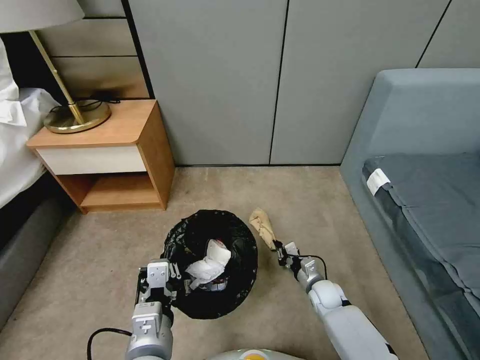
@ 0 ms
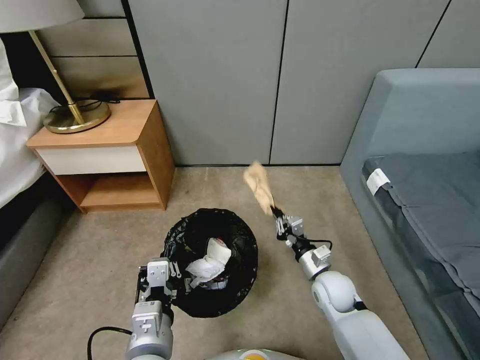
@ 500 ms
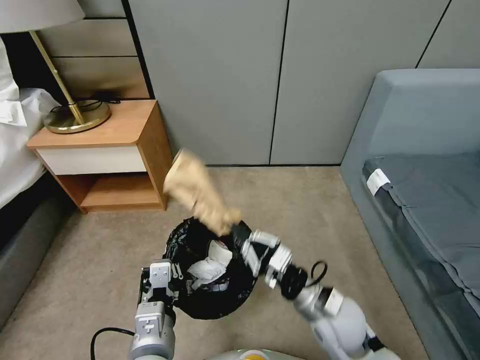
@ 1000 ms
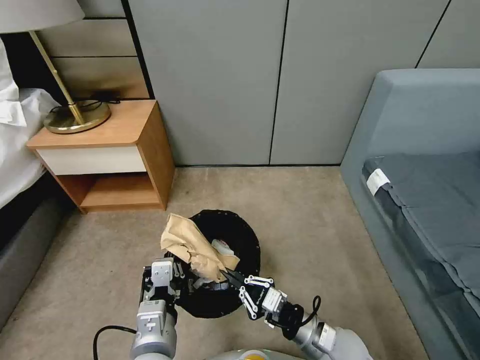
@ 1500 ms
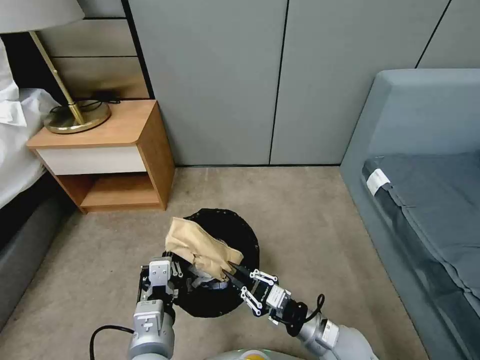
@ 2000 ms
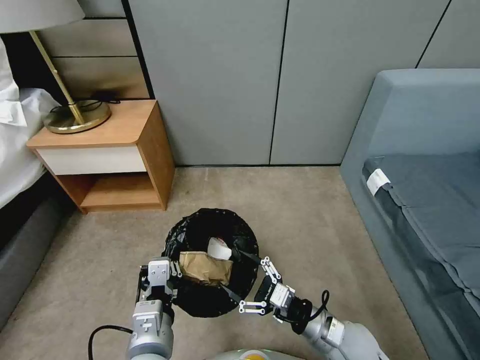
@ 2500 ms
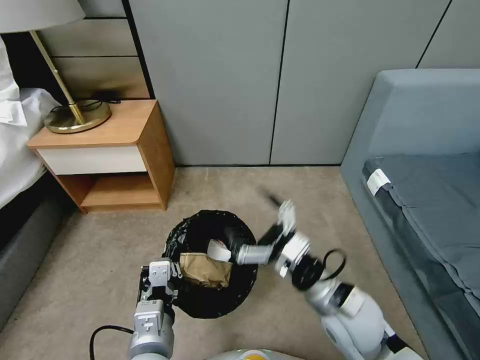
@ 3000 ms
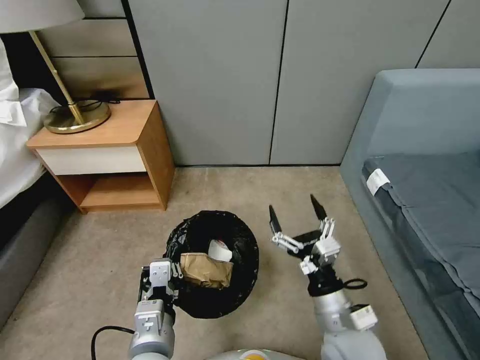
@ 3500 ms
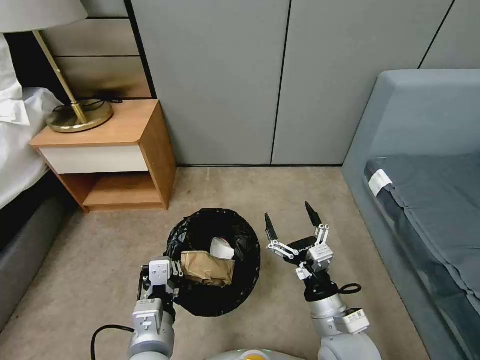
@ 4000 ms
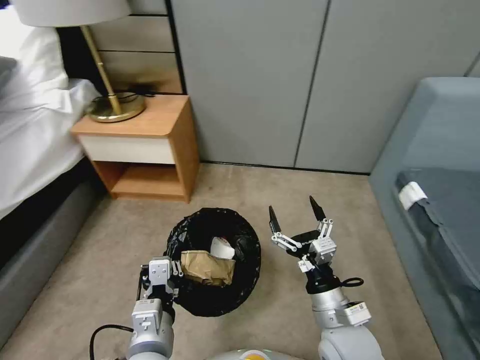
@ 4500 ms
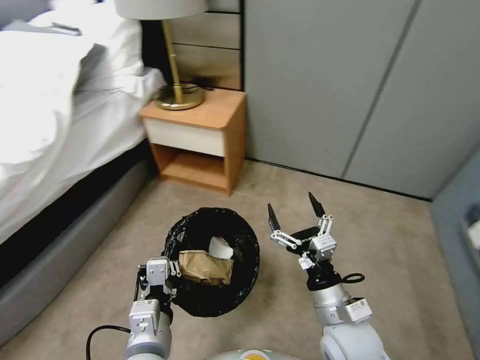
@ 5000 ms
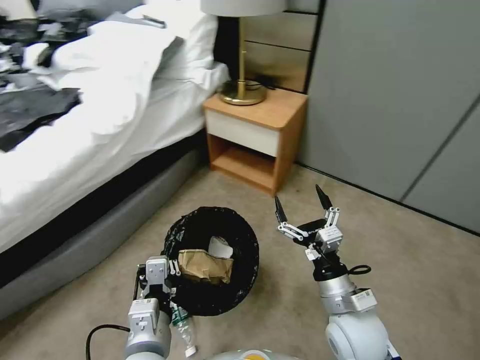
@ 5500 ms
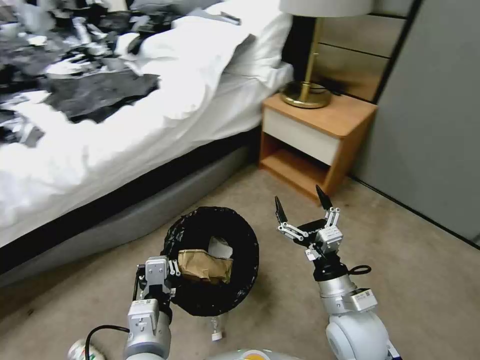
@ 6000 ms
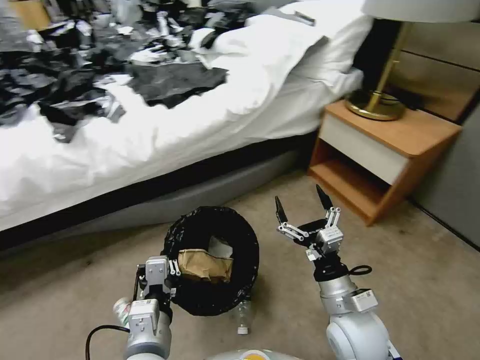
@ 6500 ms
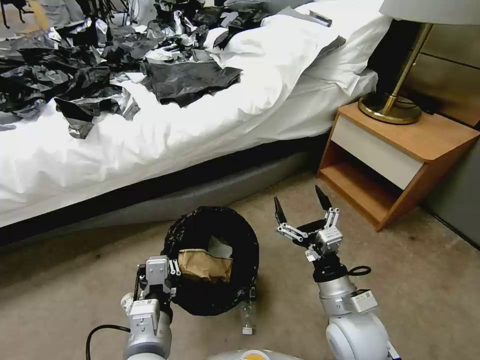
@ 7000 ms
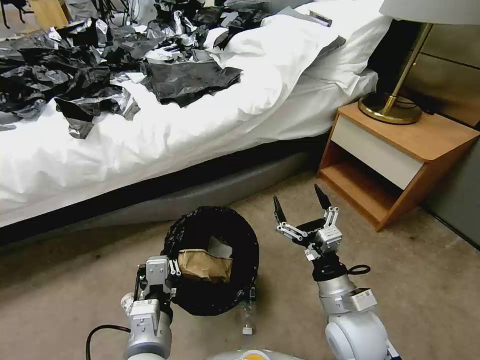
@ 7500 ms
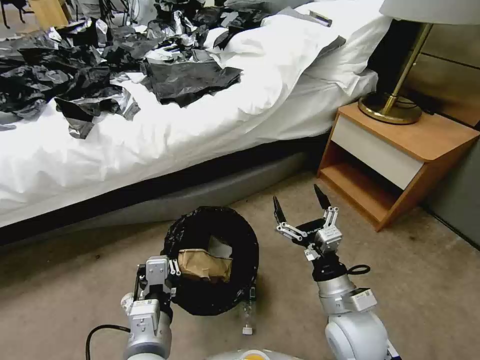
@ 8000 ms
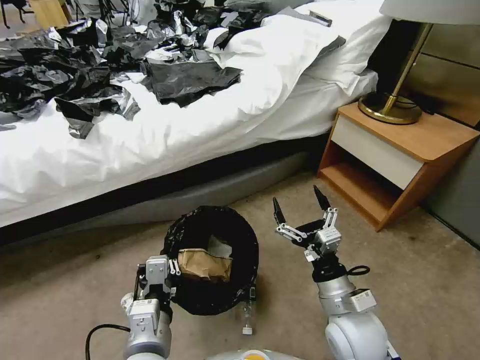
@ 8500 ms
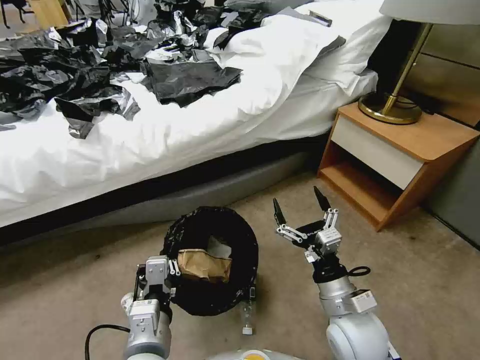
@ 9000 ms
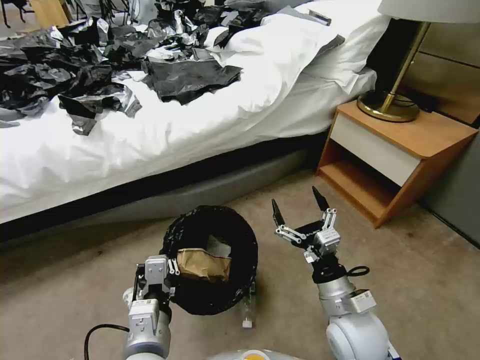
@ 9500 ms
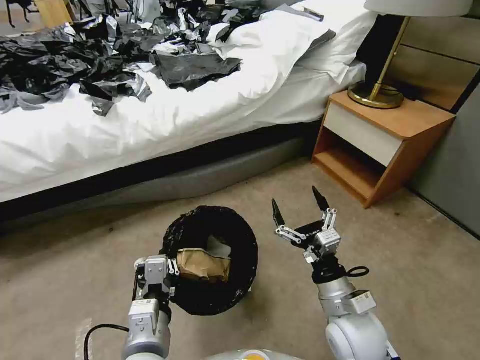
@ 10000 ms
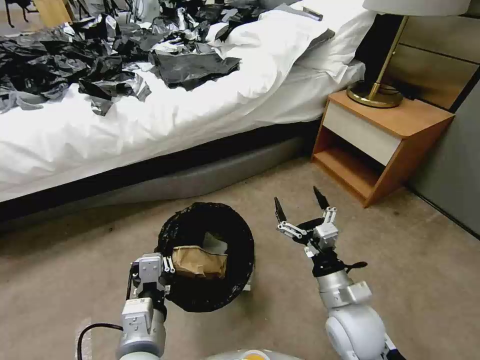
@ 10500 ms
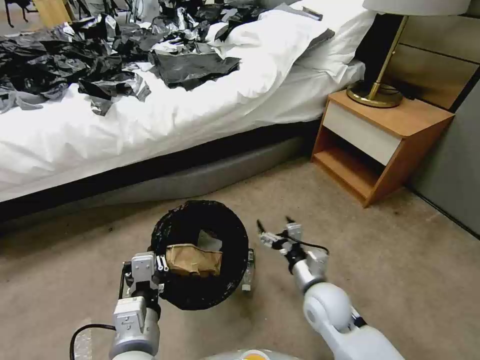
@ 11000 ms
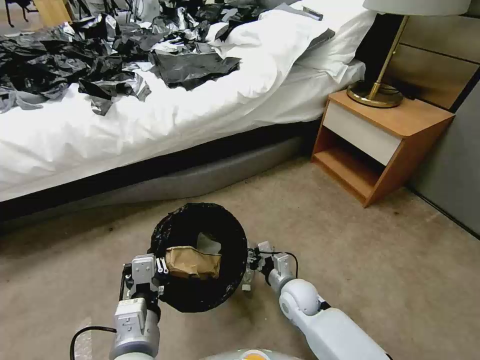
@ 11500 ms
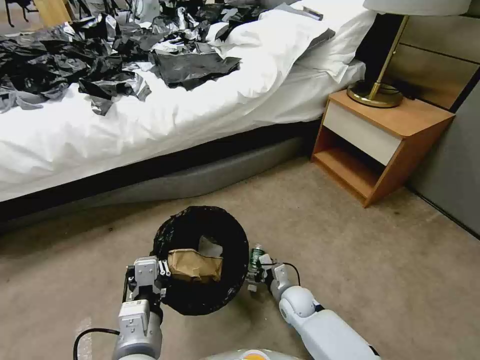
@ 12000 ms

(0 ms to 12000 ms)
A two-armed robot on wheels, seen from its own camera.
Task of the whole recording: Pick up the trash bin, then pick up the garbage from the floor and place it into the trash bin.
0 ms - 2000 ms: The right gripper heads upward and backward, covering roughly 20 cm.
2000 ms - 4000 ms: The right gripper moves upward, roughly 5 cm, and opens up.
10000 ms - 12000 ms: The right gripper travels downward and forward by approximately 25 cm.

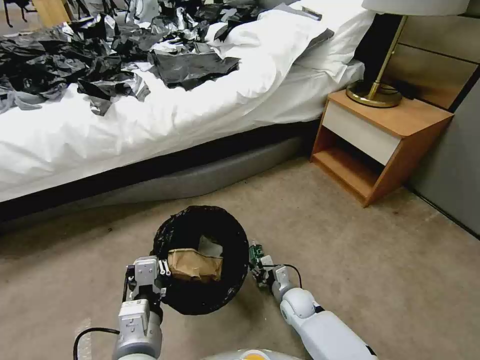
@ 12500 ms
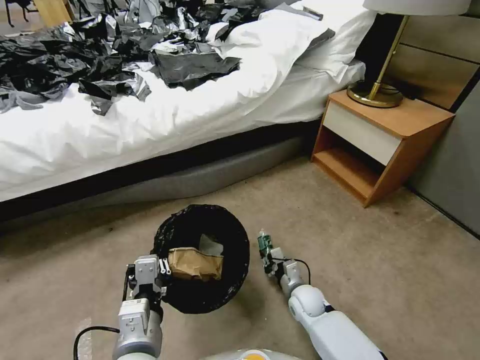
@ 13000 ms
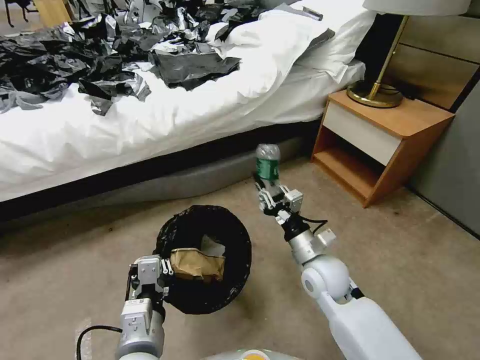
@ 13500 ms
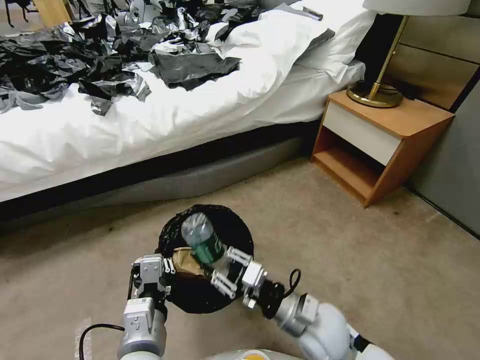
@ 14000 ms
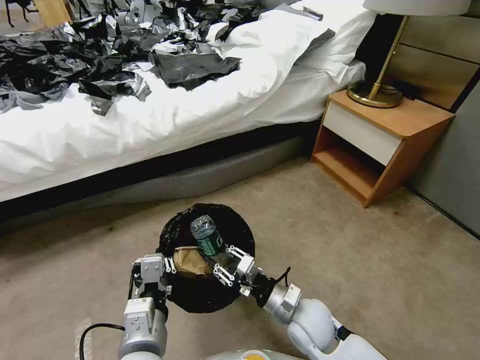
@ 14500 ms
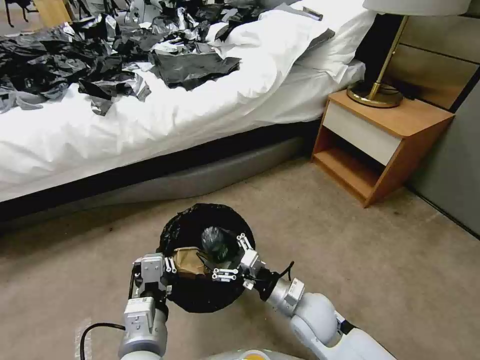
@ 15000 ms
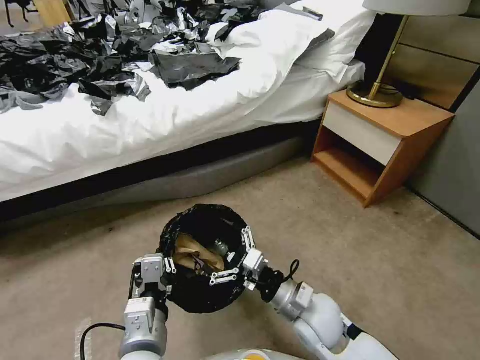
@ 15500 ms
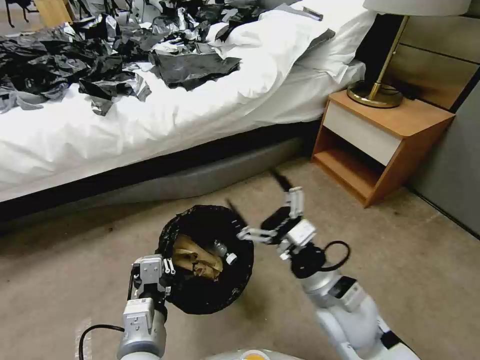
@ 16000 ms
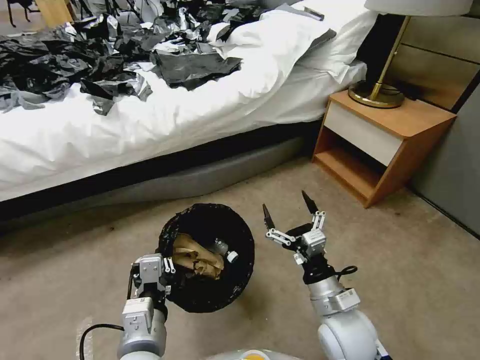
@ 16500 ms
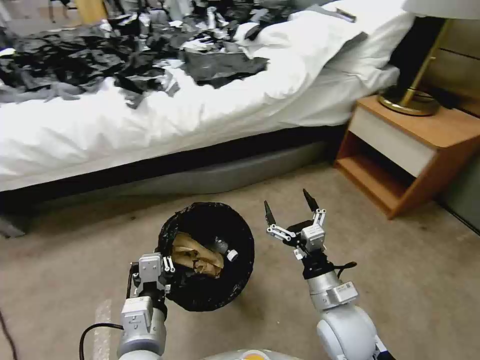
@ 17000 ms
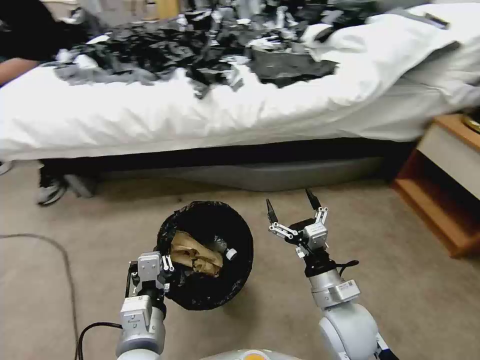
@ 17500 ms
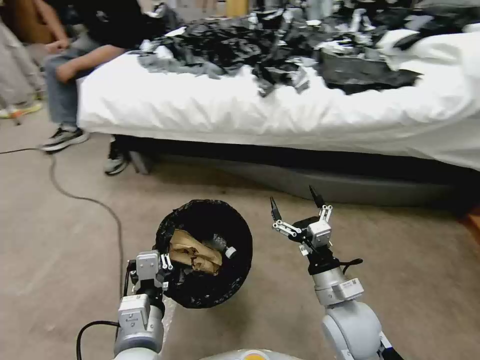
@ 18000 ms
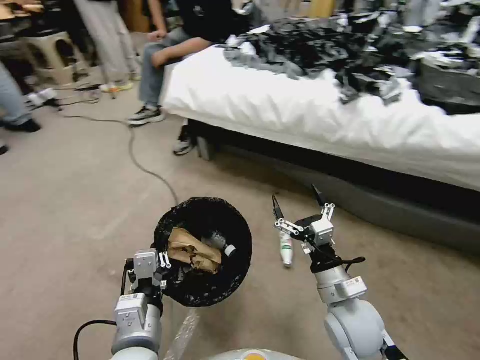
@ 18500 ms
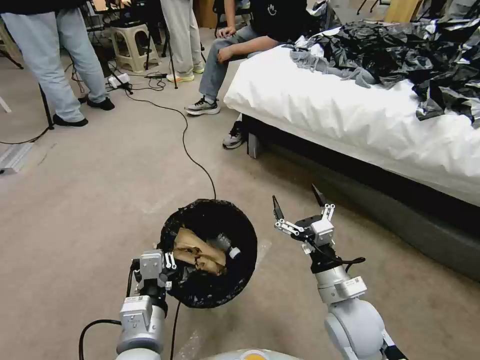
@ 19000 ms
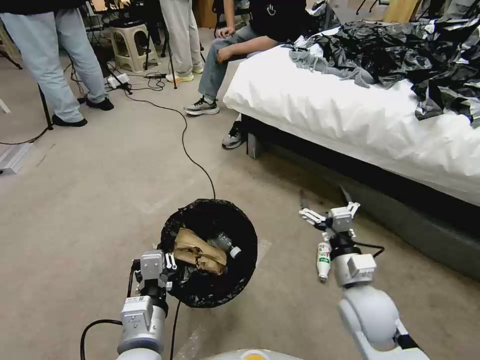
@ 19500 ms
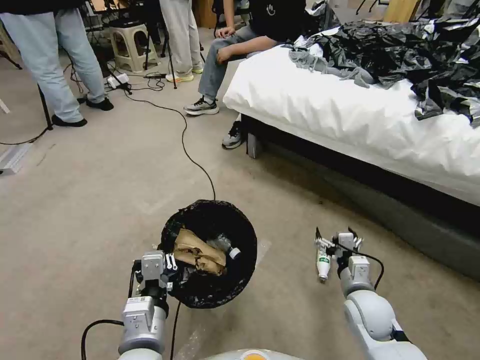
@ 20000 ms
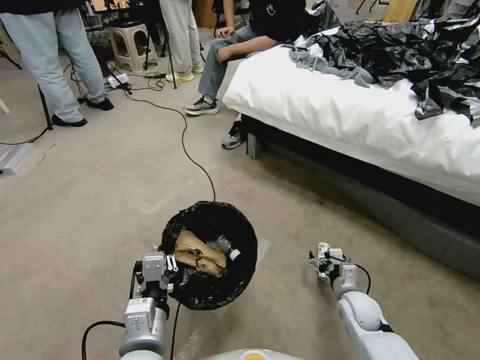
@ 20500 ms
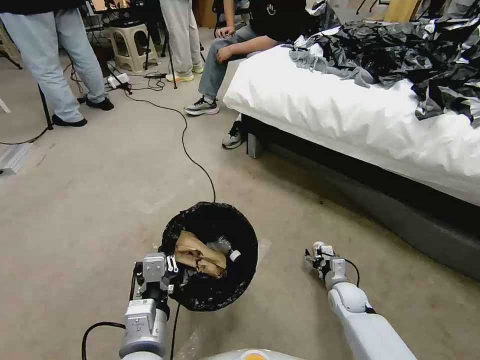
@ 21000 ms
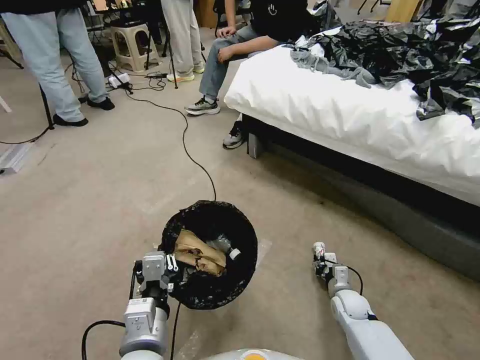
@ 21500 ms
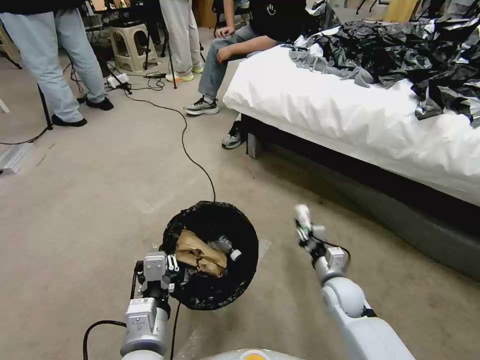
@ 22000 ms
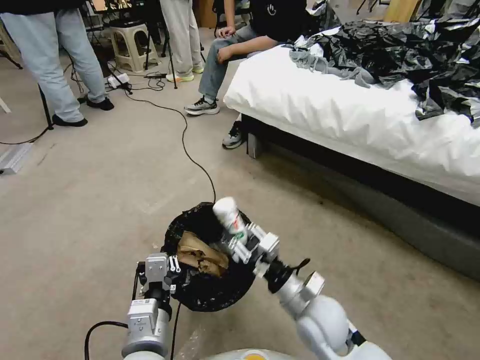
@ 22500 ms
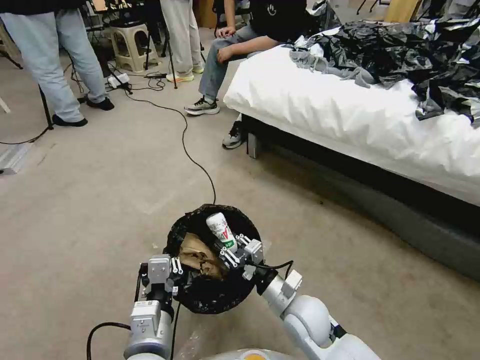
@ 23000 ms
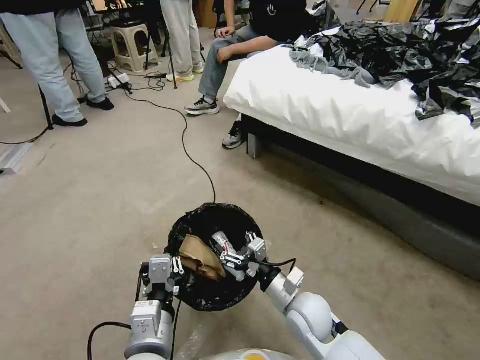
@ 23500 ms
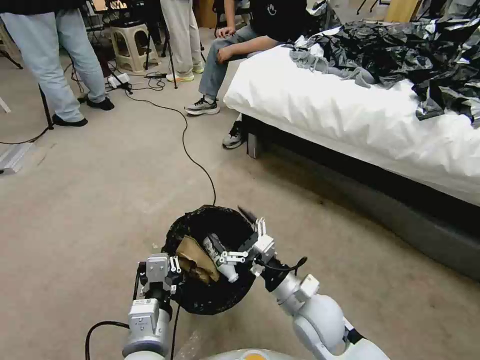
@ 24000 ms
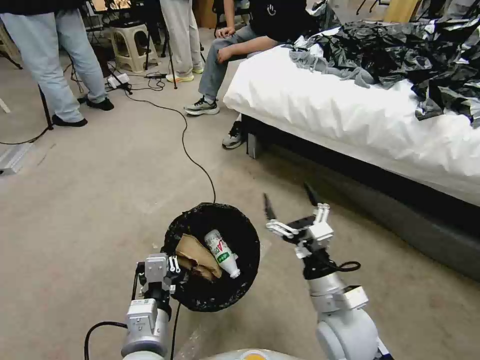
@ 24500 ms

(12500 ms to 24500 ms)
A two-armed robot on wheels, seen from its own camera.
Task of the whole recording: Pick up the trash bin, then pick up the garbage from the floor and place it into the trash bin.
12500 ms - 14500 ms: The right gripper shifts roughly 20 cm upward and backward.
14500 ms - 16500 ms: The right gripper heads upward, covering some 5 cm, and opens its fingers.
18500 ms - 20500 ms: The right gripper heads downward and to the right, covering about 20 cm.
20500 ms - 22500 ms: The right gripper travels to the left and upward by approximately 20 cm, and closes its fingers.
22500 ms - 24500 ms: The right gripper reaches roughly 5 cm downward, then returns, and opens.

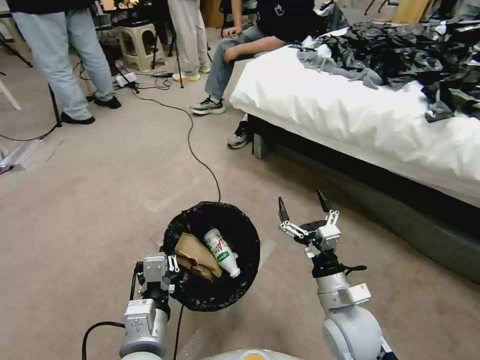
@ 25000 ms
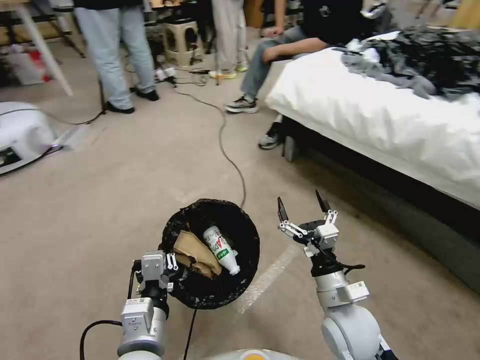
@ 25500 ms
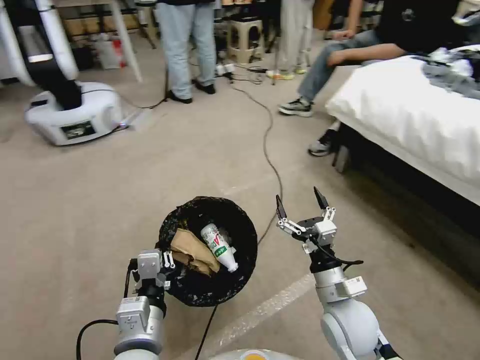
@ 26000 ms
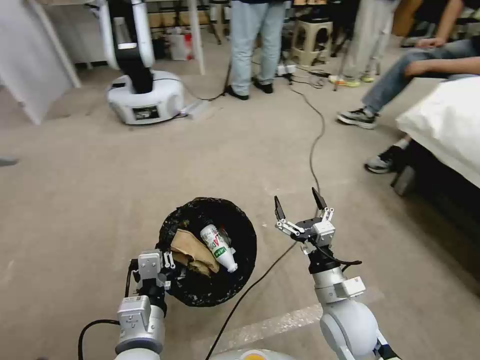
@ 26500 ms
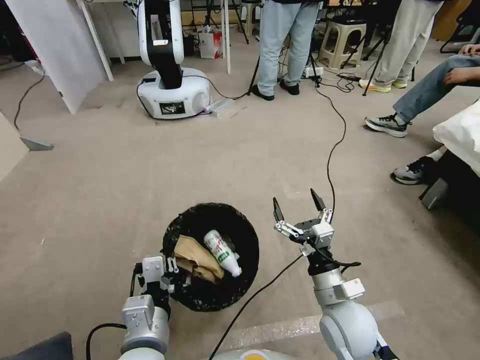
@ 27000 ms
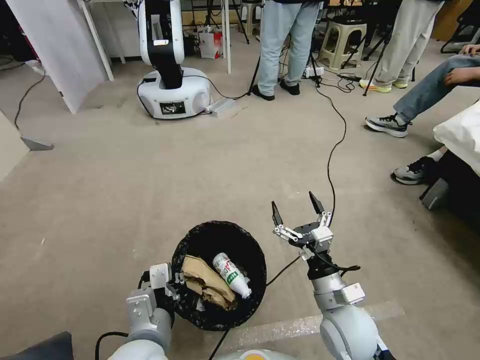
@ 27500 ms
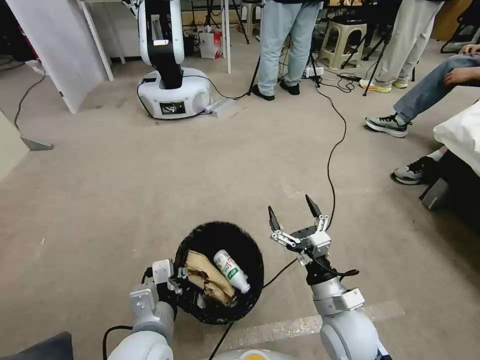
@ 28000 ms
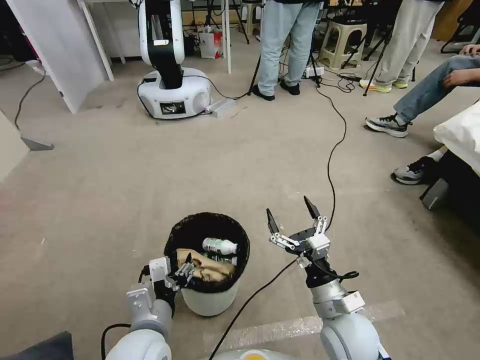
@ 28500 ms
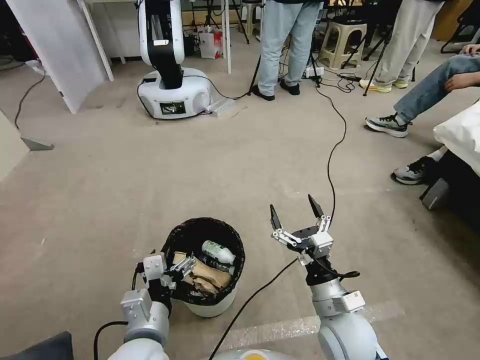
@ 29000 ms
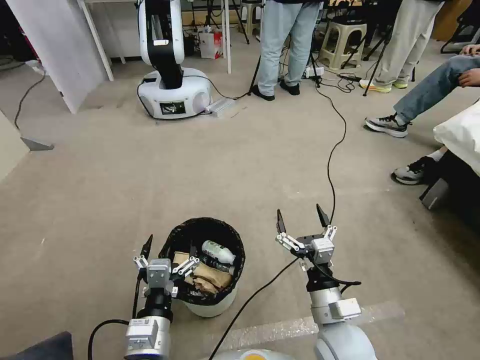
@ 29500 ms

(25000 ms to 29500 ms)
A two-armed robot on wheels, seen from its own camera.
Task of the whole recording: Pick up the trash bin, then pick up the garbage from the floor and place it into the trash bin.
27000 ms - 29500 ms: The left gripper opens its fingers.
